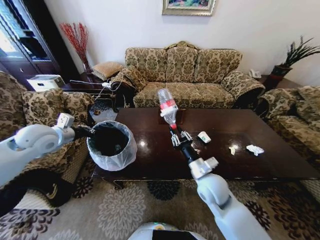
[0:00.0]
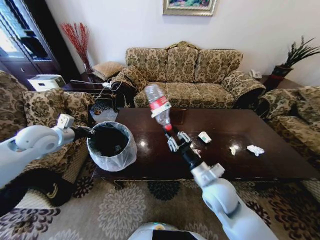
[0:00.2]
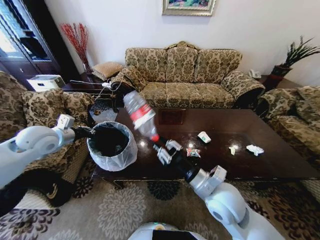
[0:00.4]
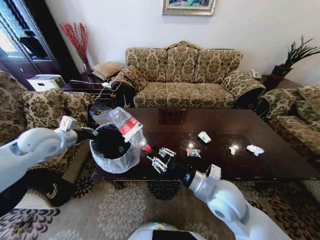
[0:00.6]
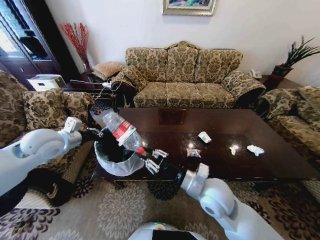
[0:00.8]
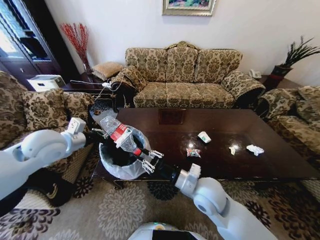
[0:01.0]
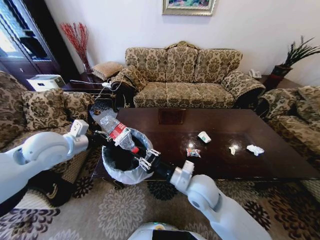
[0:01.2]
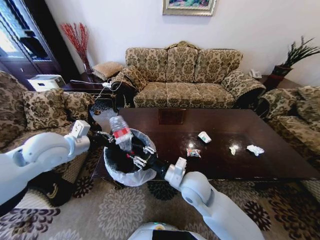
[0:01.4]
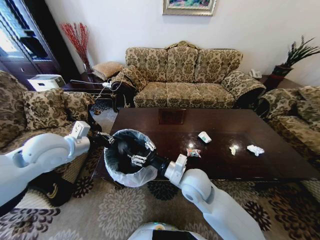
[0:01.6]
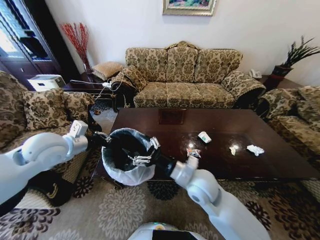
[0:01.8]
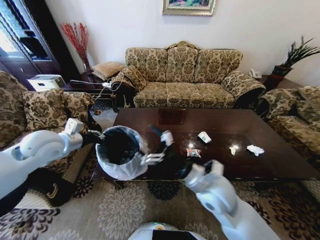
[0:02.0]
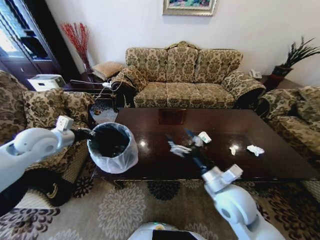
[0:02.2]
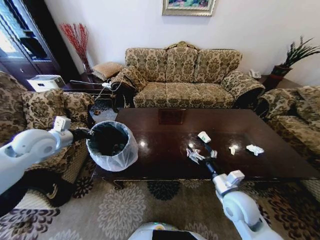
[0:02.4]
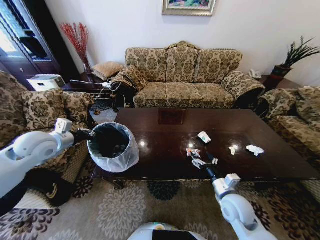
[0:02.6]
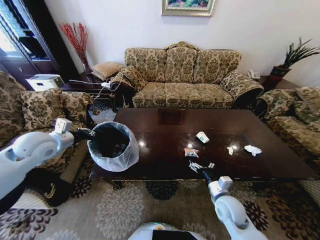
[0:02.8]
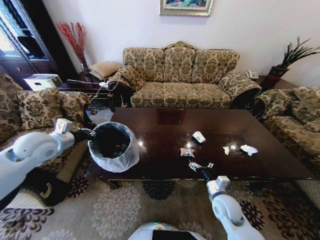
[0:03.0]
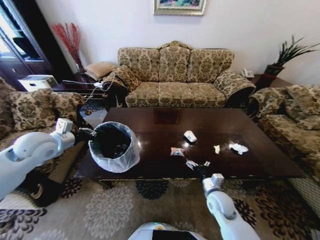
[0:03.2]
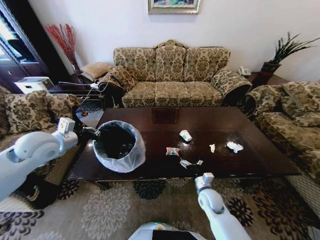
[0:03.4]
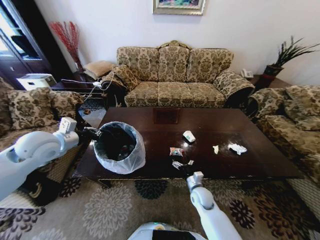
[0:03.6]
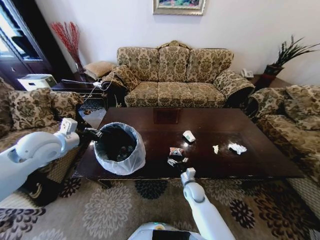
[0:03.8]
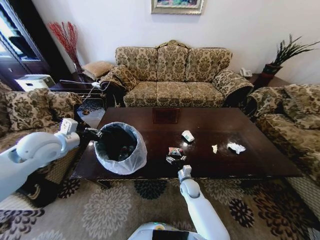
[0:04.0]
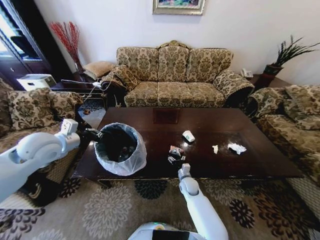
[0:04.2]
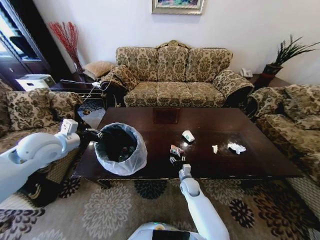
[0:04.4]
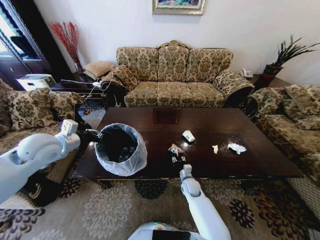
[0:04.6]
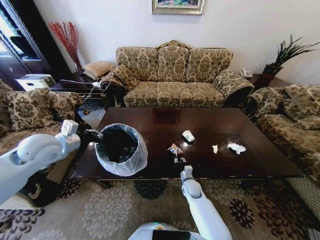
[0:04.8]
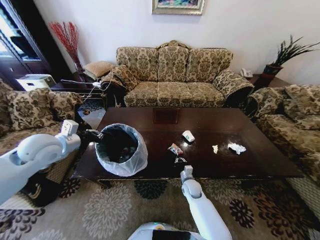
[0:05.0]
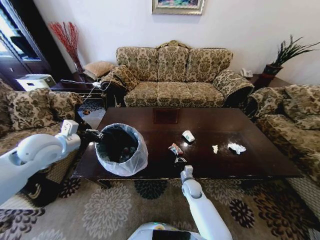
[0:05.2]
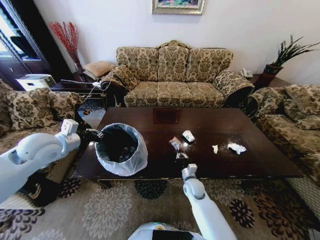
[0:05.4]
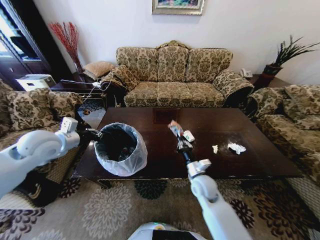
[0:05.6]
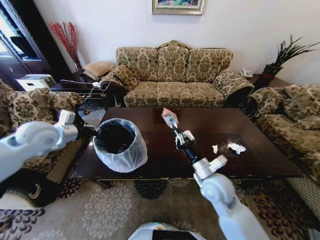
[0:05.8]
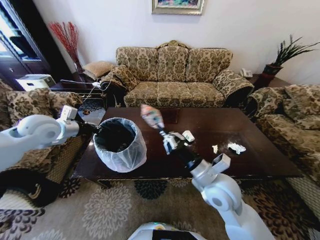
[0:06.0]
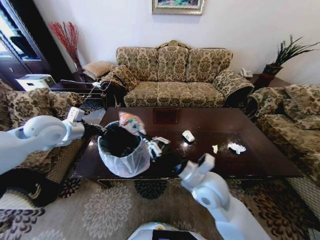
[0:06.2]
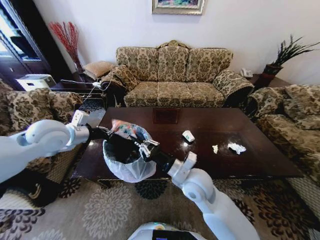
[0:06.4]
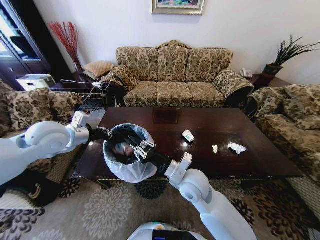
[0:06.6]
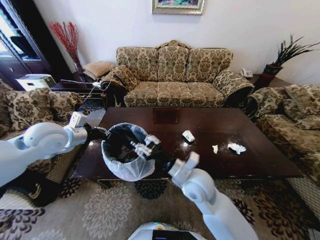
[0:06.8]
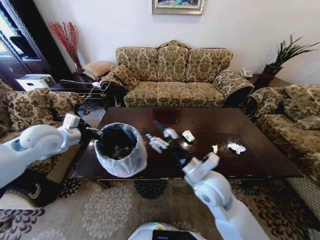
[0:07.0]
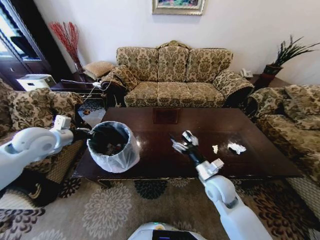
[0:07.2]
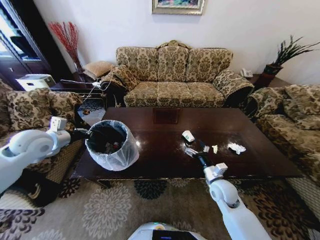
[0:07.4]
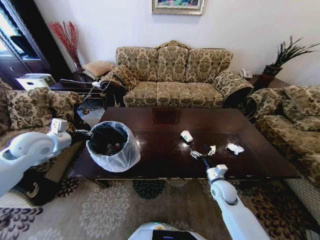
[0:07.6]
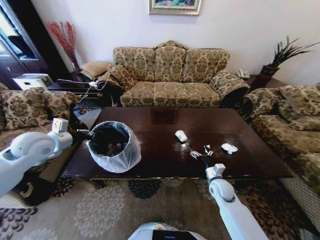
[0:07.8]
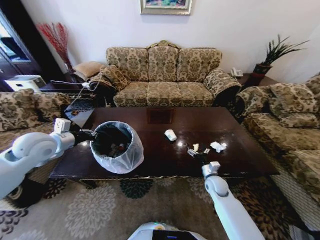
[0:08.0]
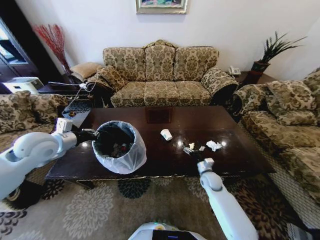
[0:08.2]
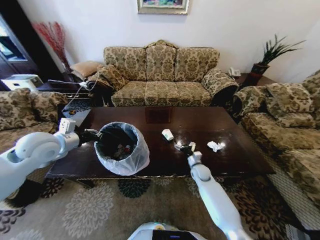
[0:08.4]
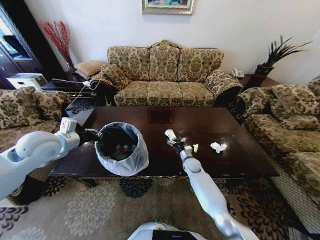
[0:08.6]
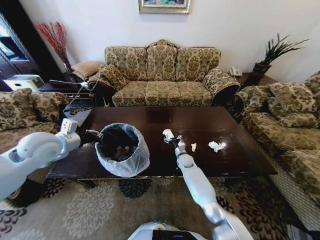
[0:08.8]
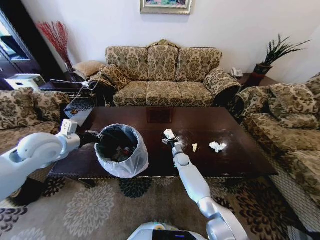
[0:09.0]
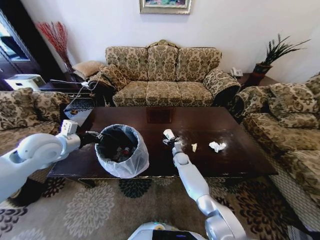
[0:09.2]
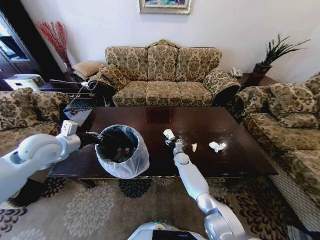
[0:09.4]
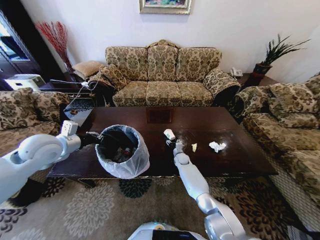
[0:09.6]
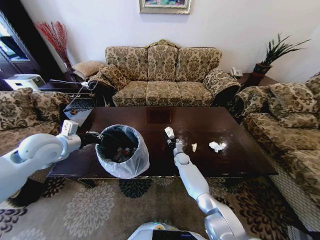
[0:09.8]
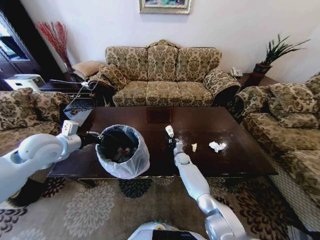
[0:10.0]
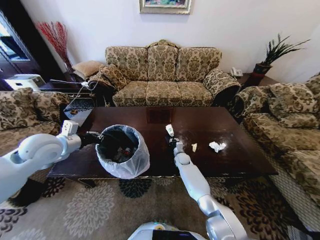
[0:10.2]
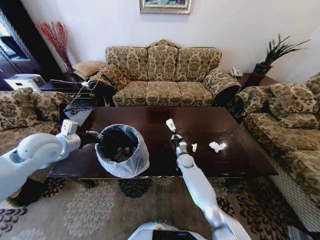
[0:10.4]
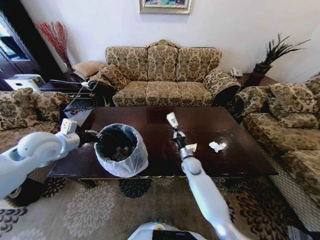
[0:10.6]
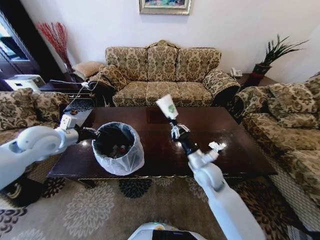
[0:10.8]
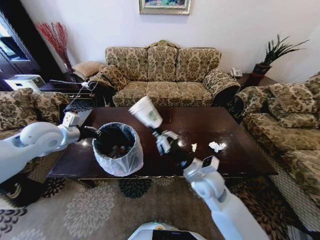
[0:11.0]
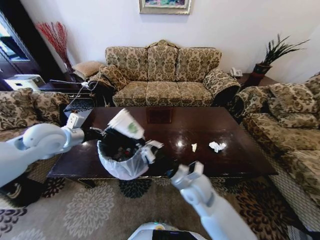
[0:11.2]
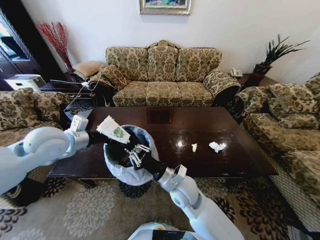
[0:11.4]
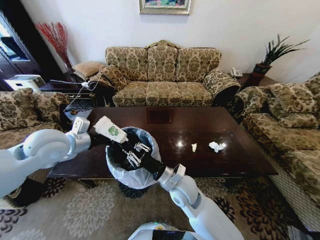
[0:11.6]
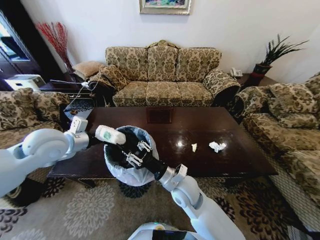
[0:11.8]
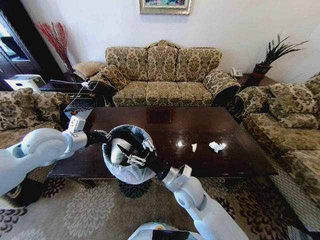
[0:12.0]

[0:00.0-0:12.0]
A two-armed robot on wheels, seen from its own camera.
Task of the whole recording: Move to the front of the table and place the trash on the table into the trash bin.
0:00.0 to 0:01.6: The right gripper shifts about 5 cm to the left, and opens its fingers. Meanwhile the left gripper shifts about 10 cm to the right and backward.
0:01.6 to 0:03.0: The left gripper moves to the left, approximately 10 cm; the right gripper is displaced to the right and downward by roughly 20 cm, and opens.
0:03.0 to 0:04.4: The right gripper is displaced forward, downward and to the left by approximately 20 cm, and closes up.
0:04.4 to 0:06.0: The right gripper goes about 30 cm upward, and closes up. Meanwhile the left gripper changes place by some 5 cm.
0:06.0 to 0:07.6: The left gripper travels to the right and back again, roughly 5 cm each way, while the right gripper shifts about 20 cm downward and to the right, and opens its fingers.
0:07.6 to 0:09.0: The right gripper goes roughly 25 cm forward and to the left.
0:09.0 to 0:10.4: The right gripper closes up.
0:10.4 to 0:12.0: The right gripper moves backward and upward, some 30 cm, and opens its fingers.

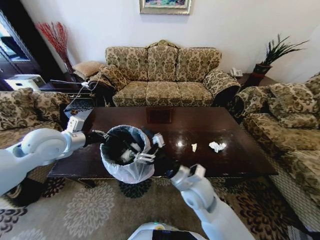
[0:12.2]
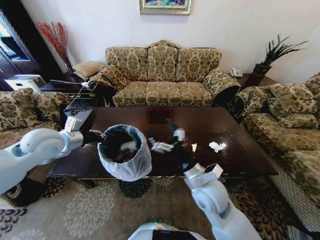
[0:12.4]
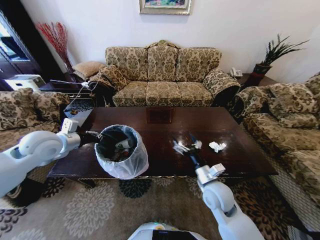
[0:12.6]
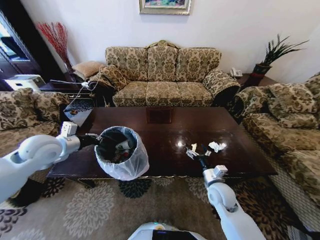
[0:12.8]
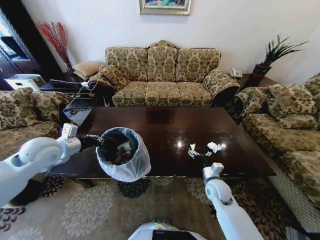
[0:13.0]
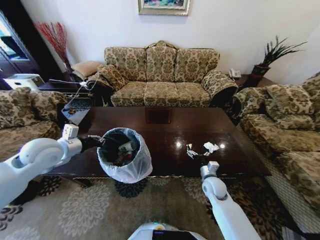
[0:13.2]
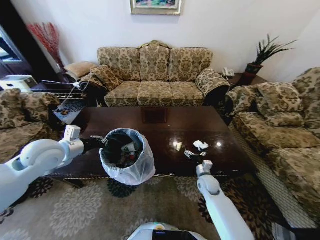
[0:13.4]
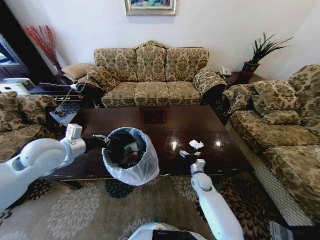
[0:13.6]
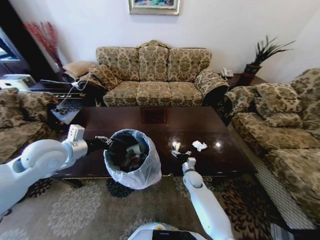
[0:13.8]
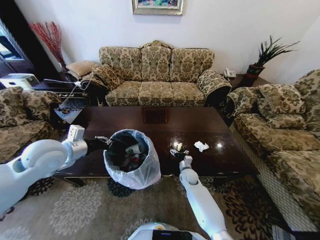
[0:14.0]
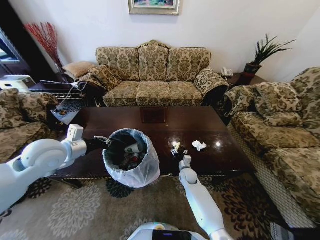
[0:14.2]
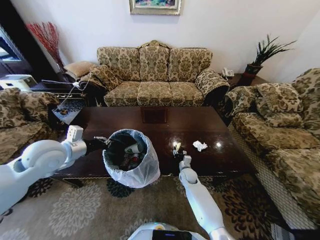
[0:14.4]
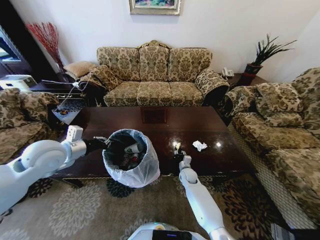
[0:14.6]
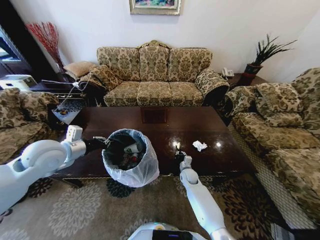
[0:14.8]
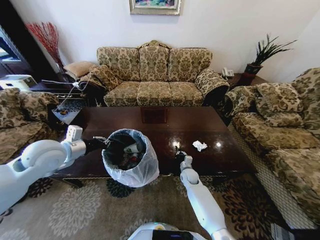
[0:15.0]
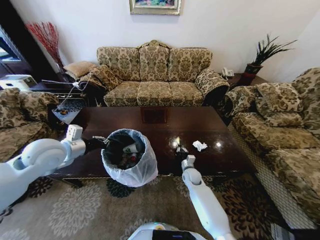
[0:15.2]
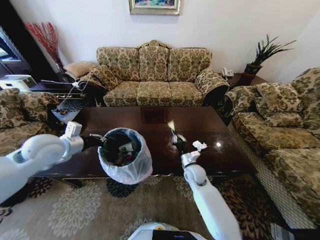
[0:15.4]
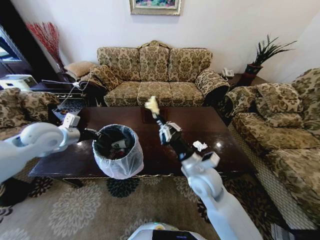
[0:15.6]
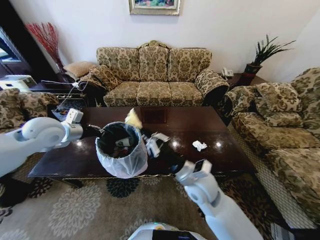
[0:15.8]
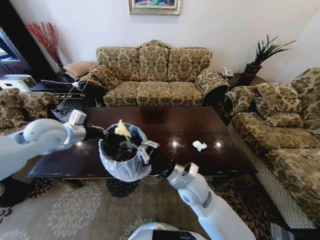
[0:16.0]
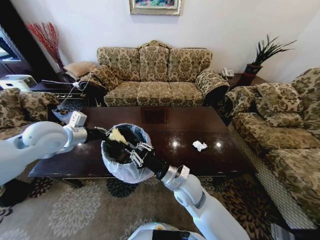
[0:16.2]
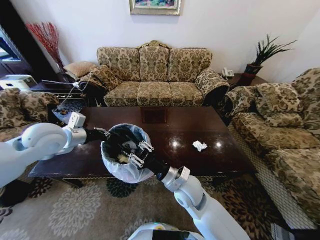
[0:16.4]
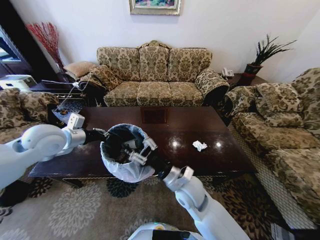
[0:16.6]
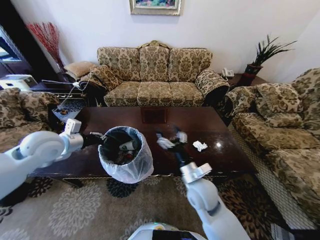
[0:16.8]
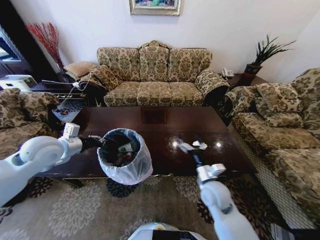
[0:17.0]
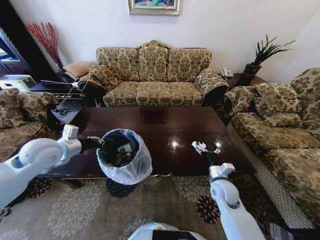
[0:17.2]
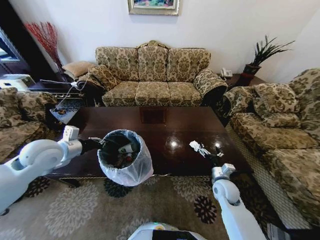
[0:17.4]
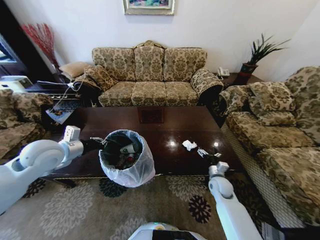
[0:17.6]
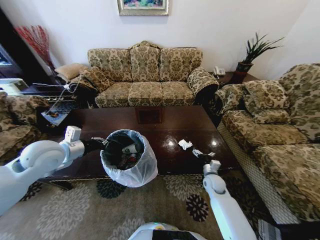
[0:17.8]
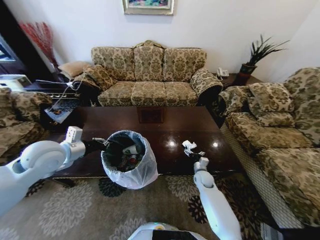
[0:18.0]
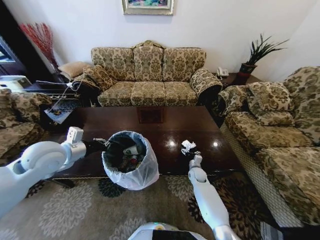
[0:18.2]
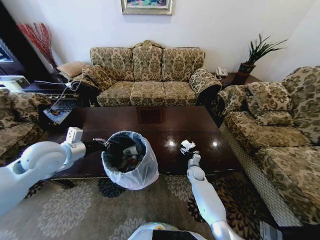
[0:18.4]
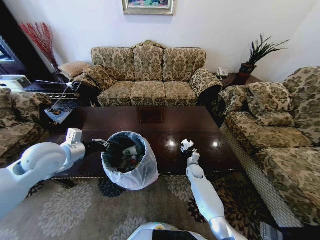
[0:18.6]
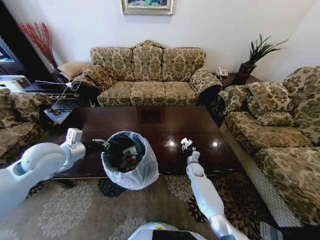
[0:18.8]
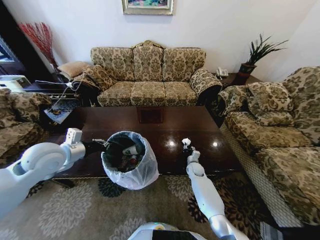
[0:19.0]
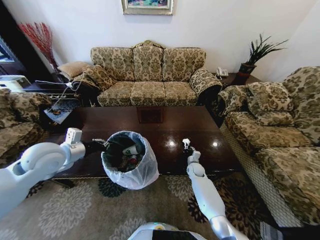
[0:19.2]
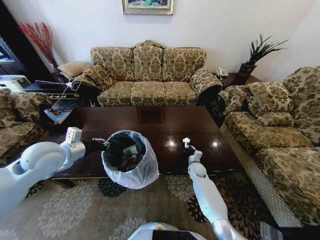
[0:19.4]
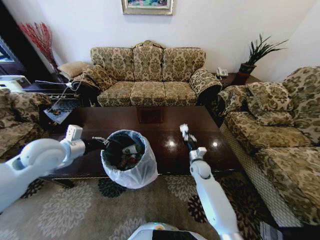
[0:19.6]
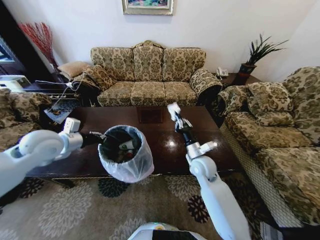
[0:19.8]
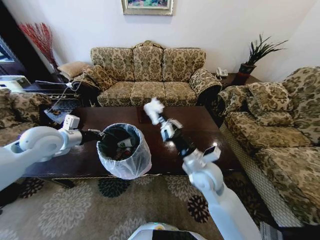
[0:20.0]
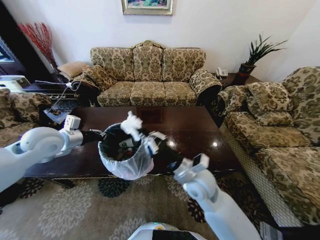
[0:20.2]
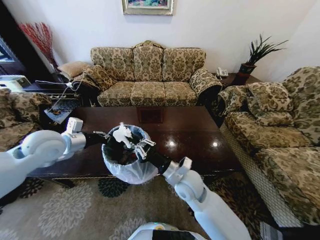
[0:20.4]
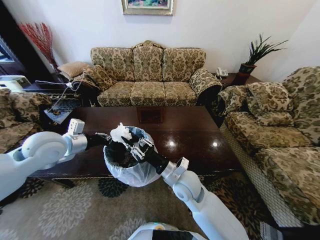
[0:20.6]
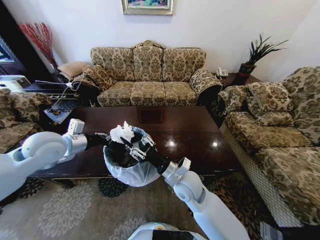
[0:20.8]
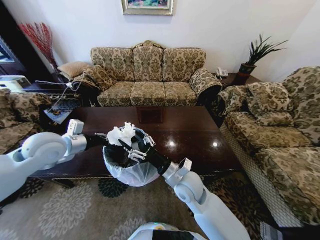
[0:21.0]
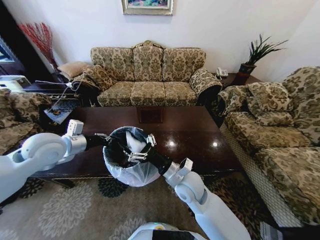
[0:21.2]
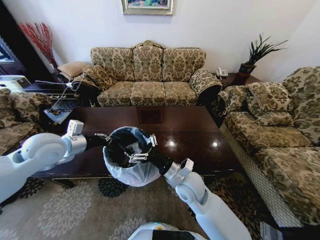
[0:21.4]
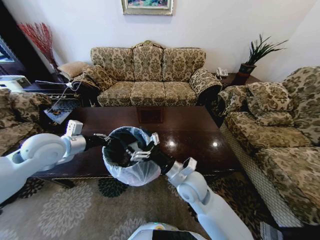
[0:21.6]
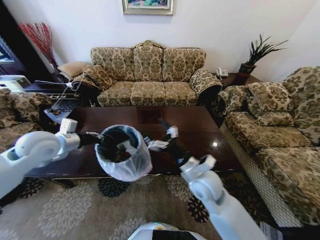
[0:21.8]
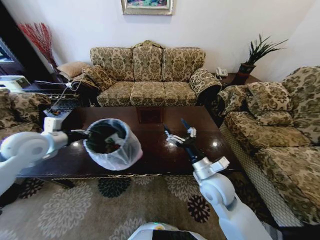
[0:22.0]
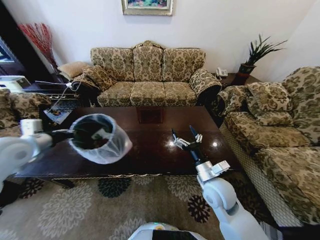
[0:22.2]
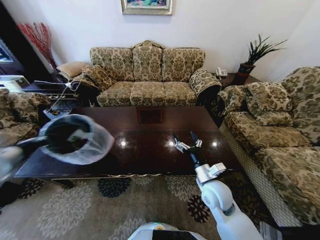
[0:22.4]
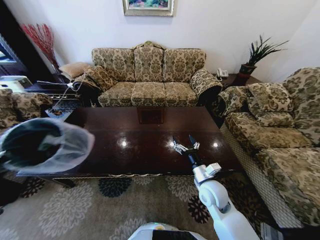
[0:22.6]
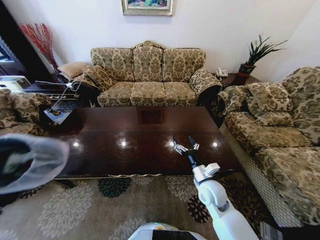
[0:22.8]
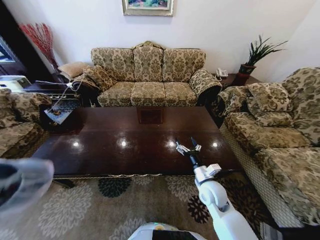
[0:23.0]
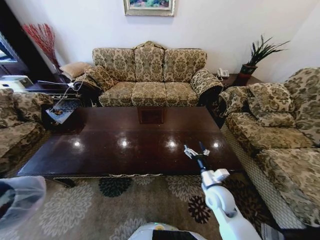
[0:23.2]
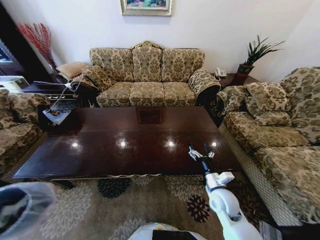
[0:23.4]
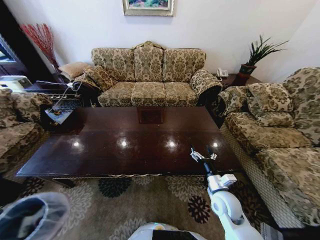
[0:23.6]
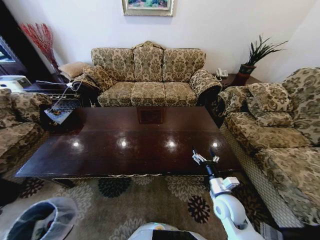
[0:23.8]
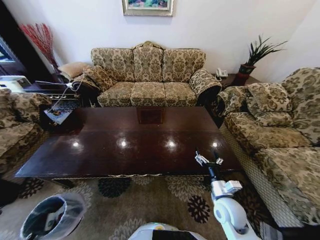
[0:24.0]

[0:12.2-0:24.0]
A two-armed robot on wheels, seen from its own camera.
Task of the whole recording: Move to the front of the table and place the trash on the table into the trash bin.
0:12.2 to 0:13.6: The right gripper goes some 25 cm downward, forward and to the right.
0:13.6 to 0:15.2: The right gripper closes up.
0:15.2 to 0:16.6: The right gripper goes approximately 25 cm upward, backward and to the left, and opens up.
0:16.6 to 0:18.2: The left gripper shifts by some 5 cm, while the right gripper is displaced downward, forward and to the right by approximately 30 cm, and opens its fingers.
0:18.2 to 0:19.6: The right gripper travels upward by about 10 cm, and closes its fingers.
0:19.6 to 0:21.0: The right gripper moves upward, backward and to the left, some 25 cm, and opens up.
0:21.0 to 0:22.6: The right gripper goes about 10 cm to the right and downward, while the left gripper heads to the left and backward, covering roughly 25 cm.
0:22.6 to 0:24.0: The left gripper shifts about 40 cm downward. The right gripper travels to the right by about 5 cm.
